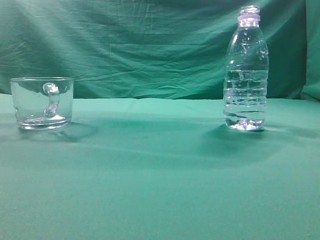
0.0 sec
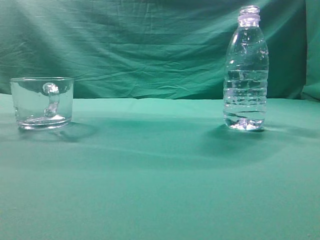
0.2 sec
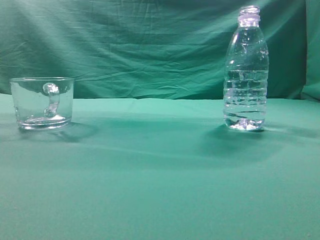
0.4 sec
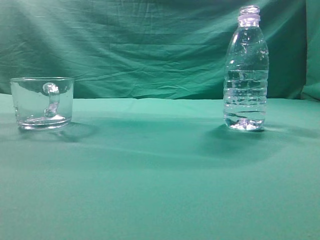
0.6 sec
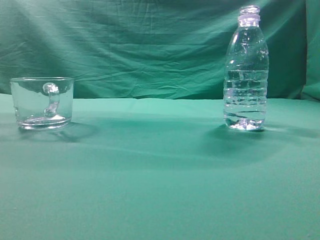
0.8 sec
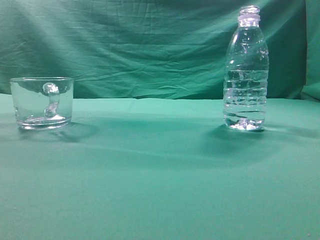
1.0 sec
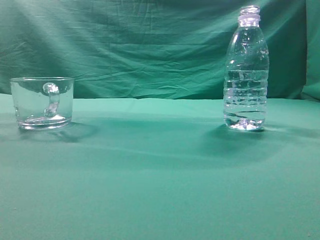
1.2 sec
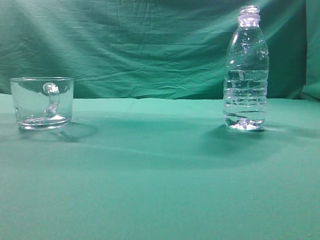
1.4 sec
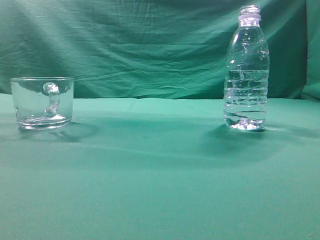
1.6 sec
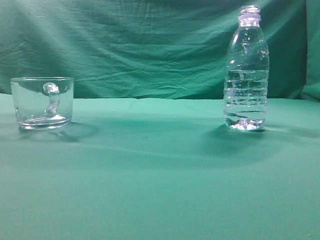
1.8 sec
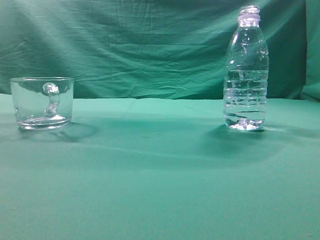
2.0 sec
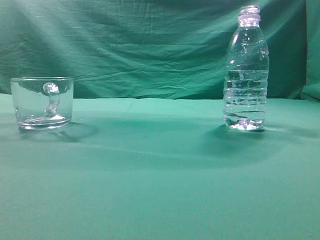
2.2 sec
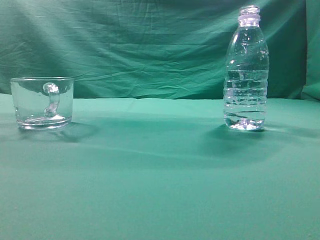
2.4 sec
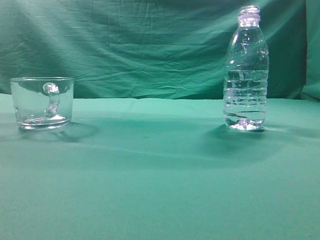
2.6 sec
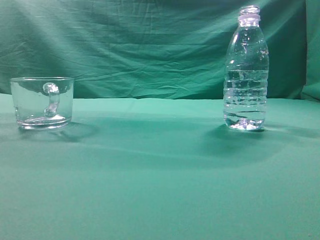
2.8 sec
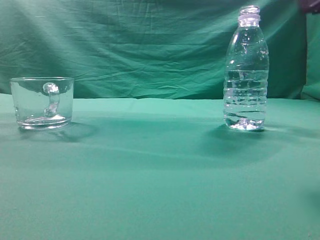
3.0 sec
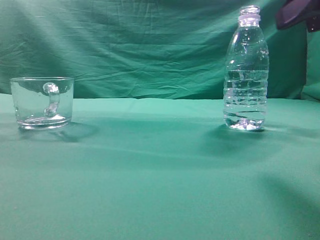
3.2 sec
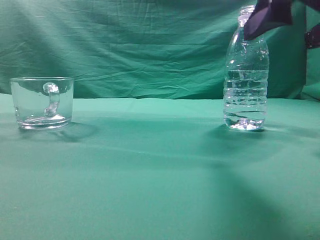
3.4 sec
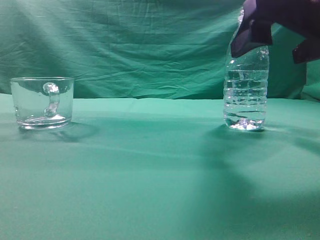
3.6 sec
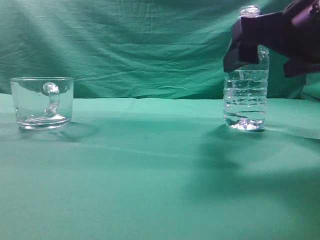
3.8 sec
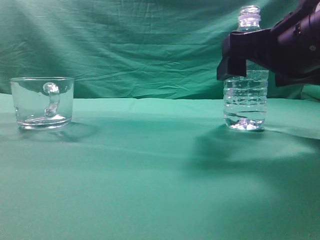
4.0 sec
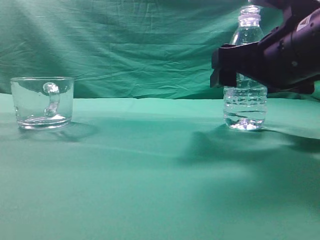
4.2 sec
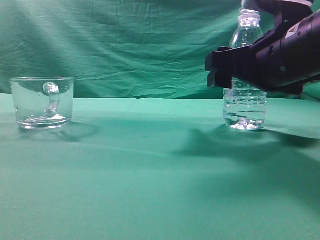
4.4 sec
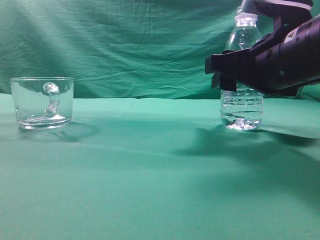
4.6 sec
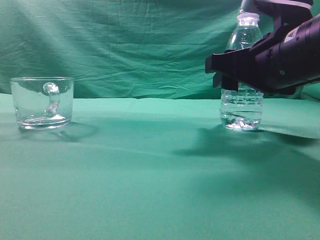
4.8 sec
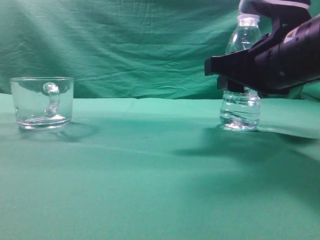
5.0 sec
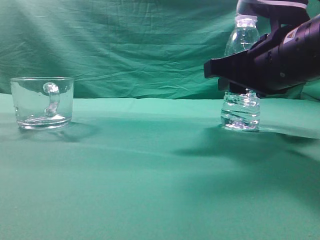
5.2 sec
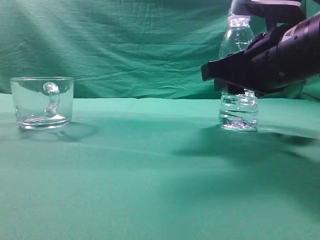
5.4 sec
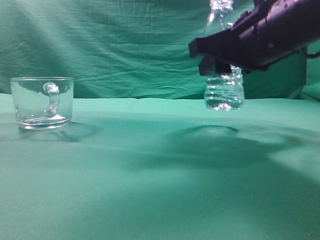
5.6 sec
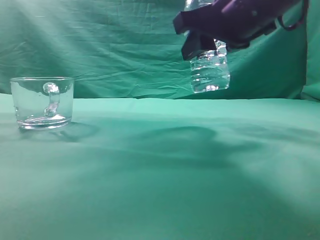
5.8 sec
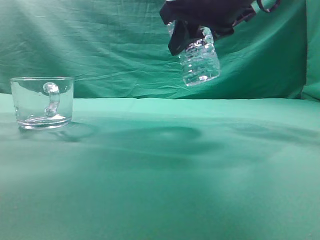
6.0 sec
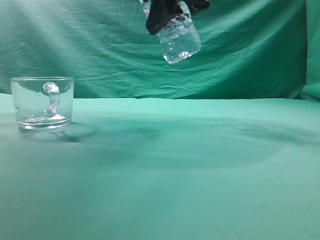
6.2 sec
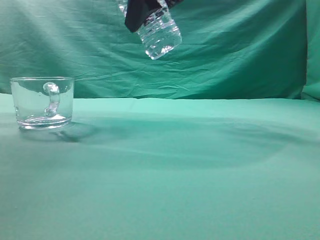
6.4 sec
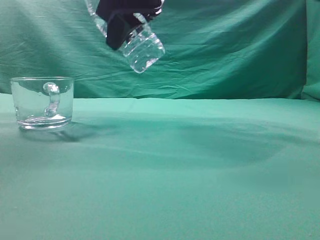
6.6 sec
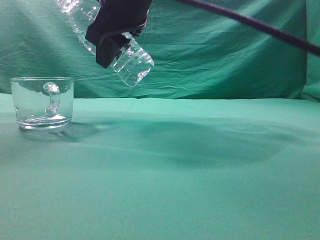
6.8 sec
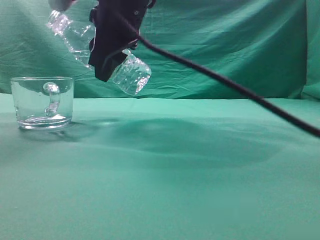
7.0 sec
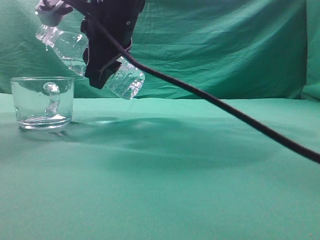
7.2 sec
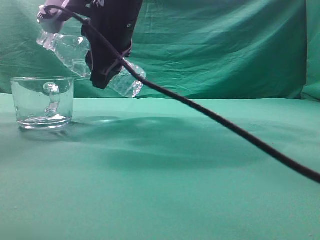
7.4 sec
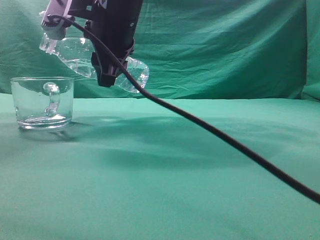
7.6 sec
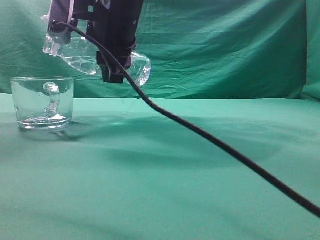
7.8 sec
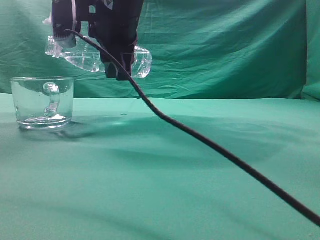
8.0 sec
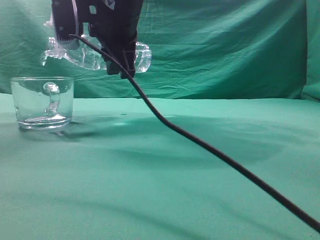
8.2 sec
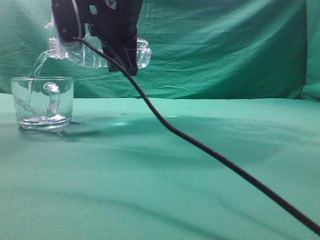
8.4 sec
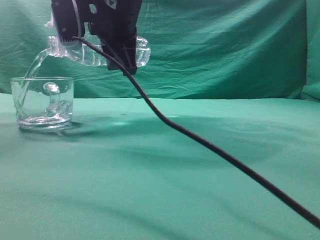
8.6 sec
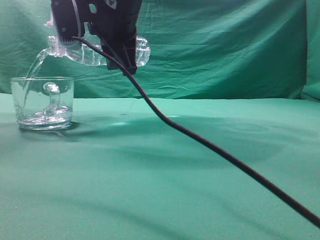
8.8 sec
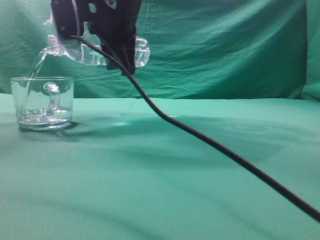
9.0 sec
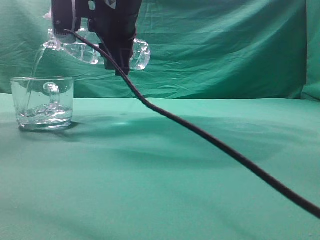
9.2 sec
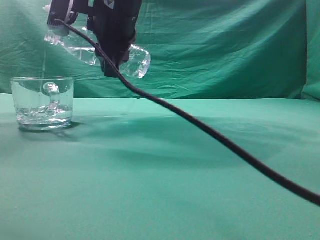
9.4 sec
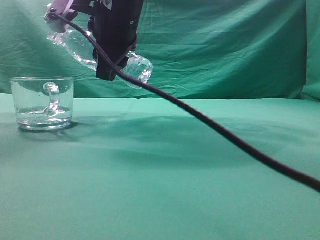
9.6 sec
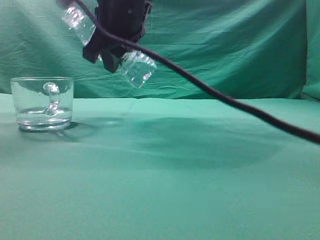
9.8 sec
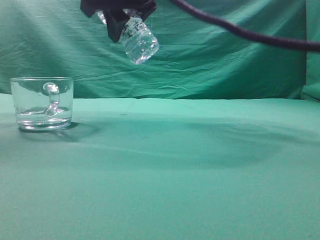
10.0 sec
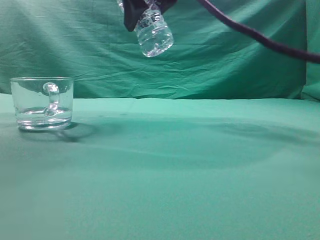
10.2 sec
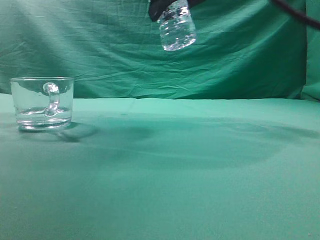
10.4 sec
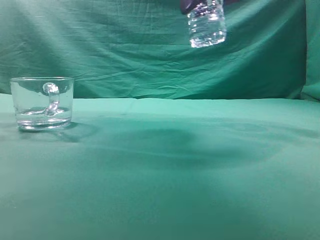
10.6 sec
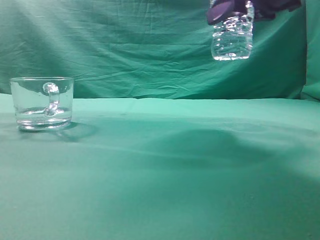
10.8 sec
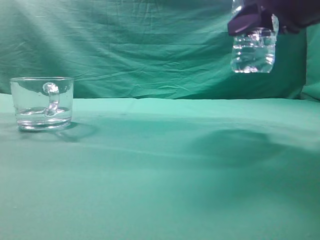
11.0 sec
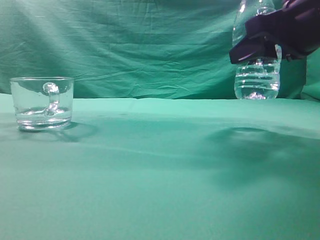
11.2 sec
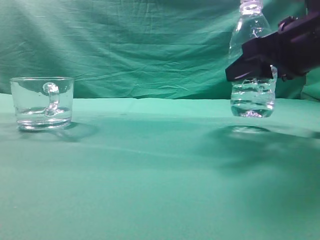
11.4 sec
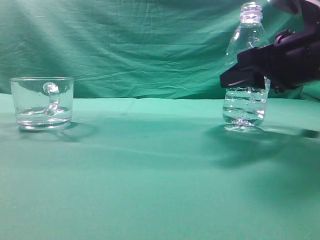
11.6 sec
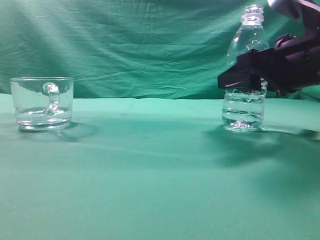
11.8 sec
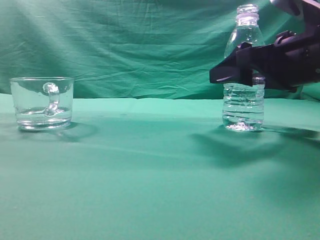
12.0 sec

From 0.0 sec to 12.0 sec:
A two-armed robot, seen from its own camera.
Task of the whole recording: pick up the water bottle and pour the water in it into the glass.
Step, from 0.0 sec to 5.6 sec: Grasp the mineral water bottle.
Step, from 5.8 sec to 9.6 sec: Pour water into the teacup.
From 3.0 sec to 4.4 sec: The right gripper travels forward, downward and to the left by some 15 cm, and opens its fingers.
From 4.4 sec to 6.0 sec: The right gripper travels upward and to the left by roughly 10 cm, and closes up.
From 6.0 sec to 7.6 sec: The right gripper is displaced to the left by about 15 cm.
From 9.0 sec to 10.4 sec: The right gripper heads to the right and upward, covering approximately 15 cm.
From 10.4 sec to 12.0 sec: The right gripper moves downward and to the right, about 20 cm, and opens.

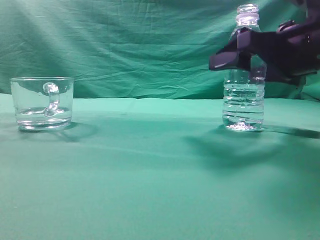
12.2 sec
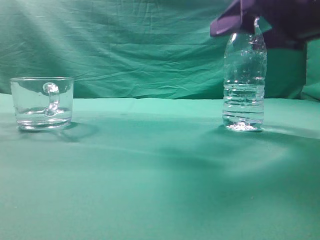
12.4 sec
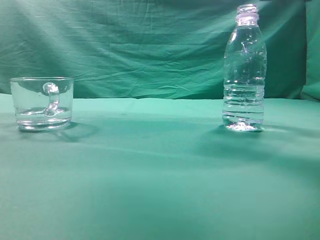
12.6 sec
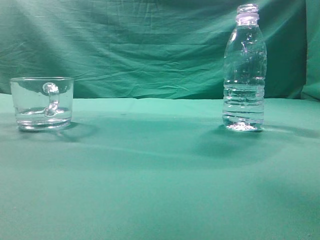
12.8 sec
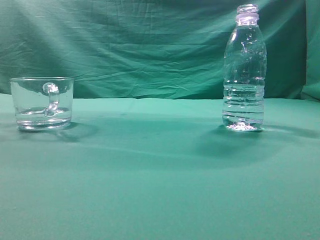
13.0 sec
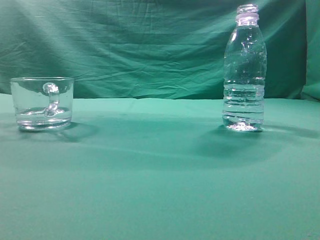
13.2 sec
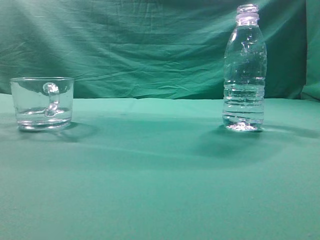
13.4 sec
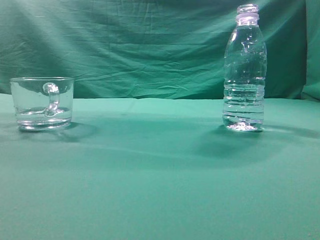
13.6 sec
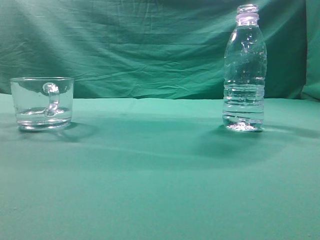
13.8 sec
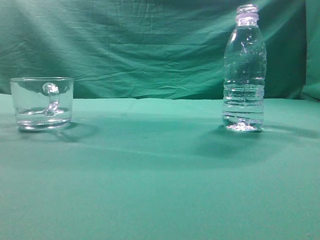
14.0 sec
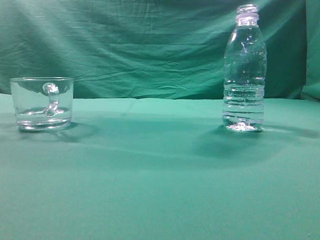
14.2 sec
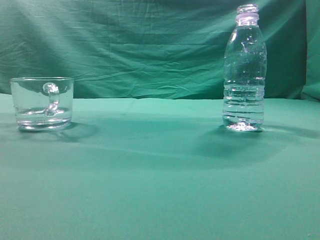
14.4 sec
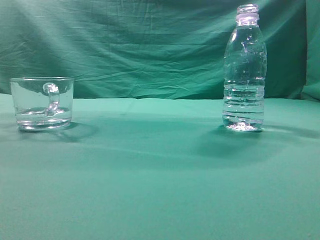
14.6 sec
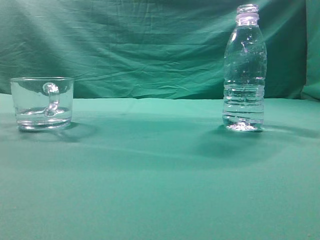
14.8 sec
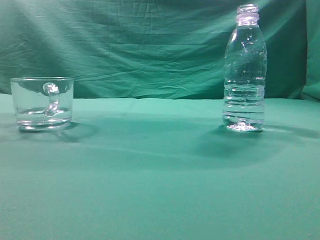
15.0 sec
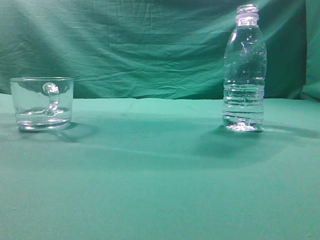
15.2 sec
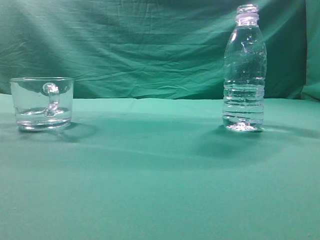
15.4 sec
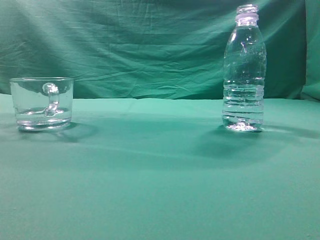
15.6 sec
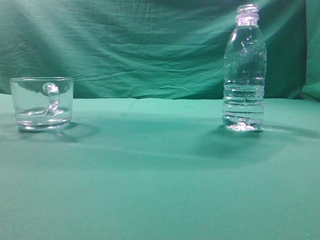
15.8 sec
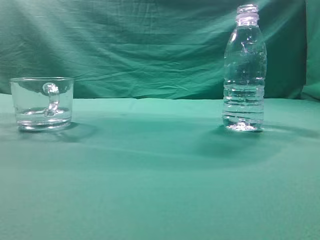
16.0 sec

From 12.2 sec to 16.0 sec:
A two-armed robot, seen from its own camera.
Task of the whole recording: pick up the water bottle and pour the water in it into the glass.
From 12.2 sec to 13.4 sec: The right gripper is displaced upward and backward by about 30 cm, and closes up.

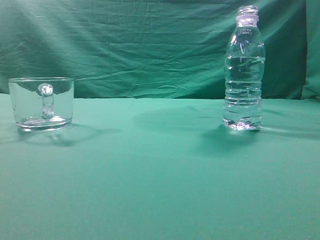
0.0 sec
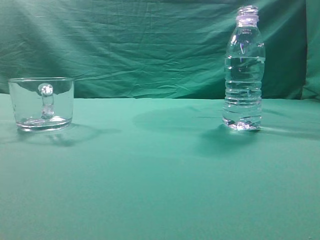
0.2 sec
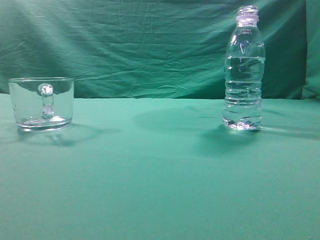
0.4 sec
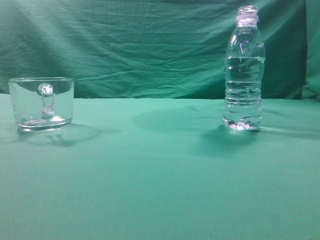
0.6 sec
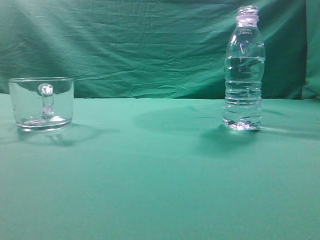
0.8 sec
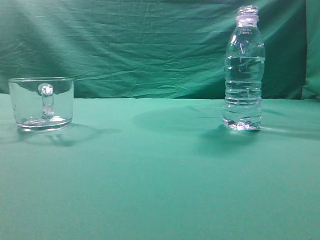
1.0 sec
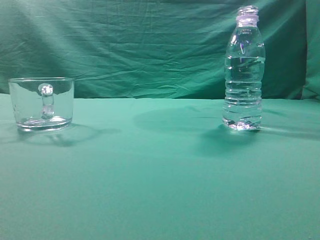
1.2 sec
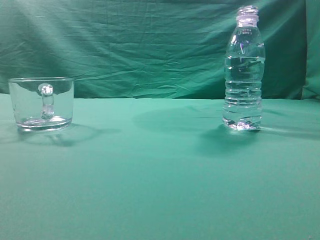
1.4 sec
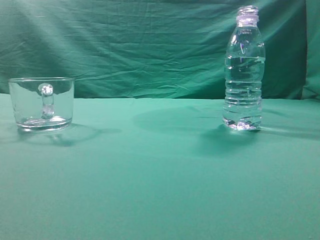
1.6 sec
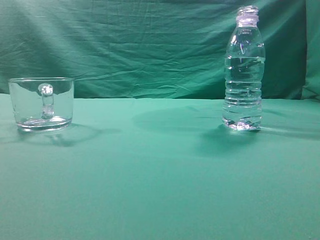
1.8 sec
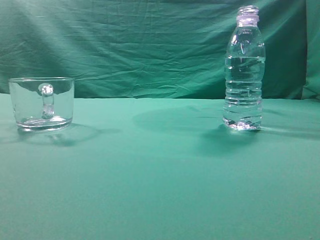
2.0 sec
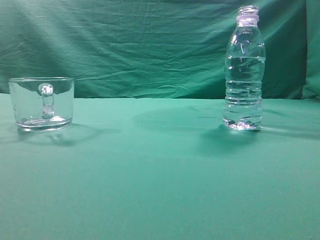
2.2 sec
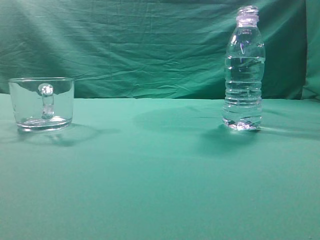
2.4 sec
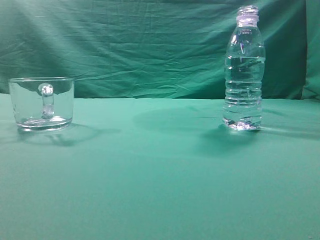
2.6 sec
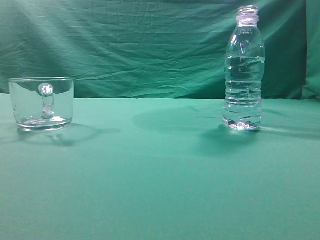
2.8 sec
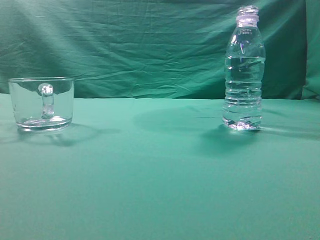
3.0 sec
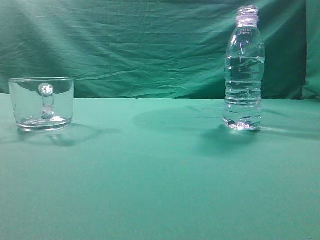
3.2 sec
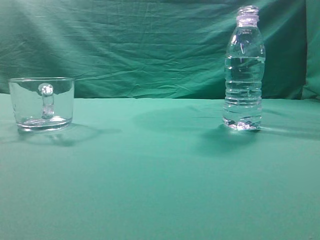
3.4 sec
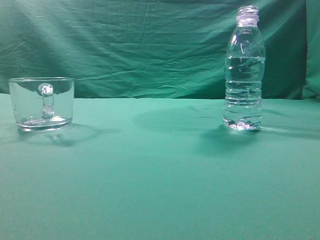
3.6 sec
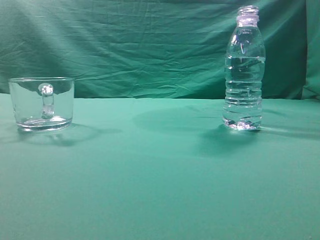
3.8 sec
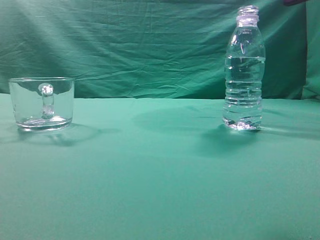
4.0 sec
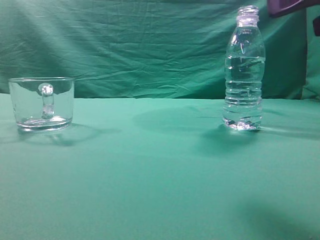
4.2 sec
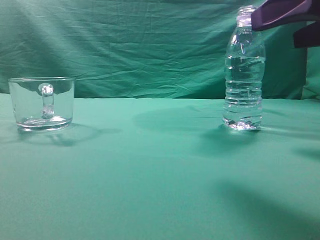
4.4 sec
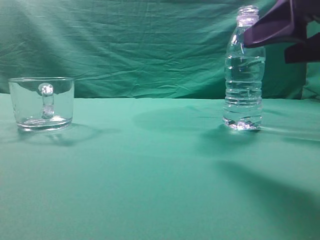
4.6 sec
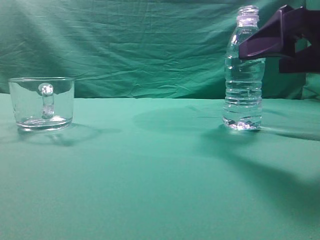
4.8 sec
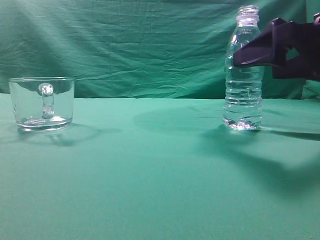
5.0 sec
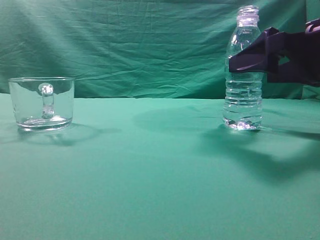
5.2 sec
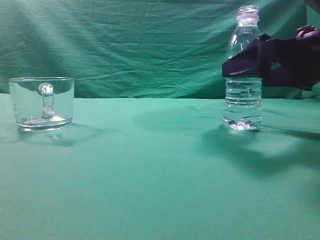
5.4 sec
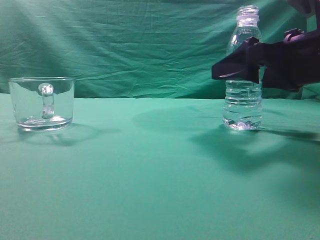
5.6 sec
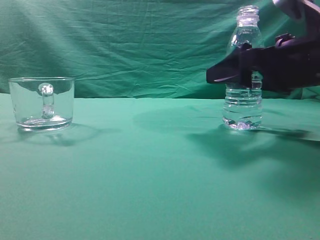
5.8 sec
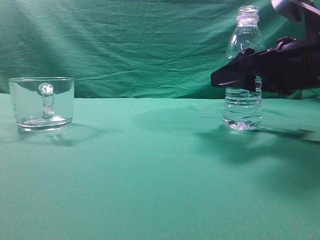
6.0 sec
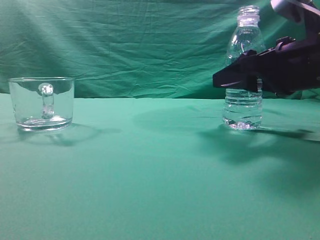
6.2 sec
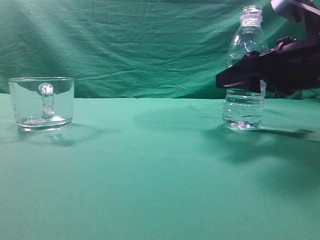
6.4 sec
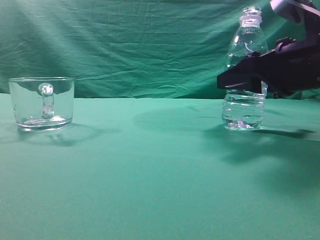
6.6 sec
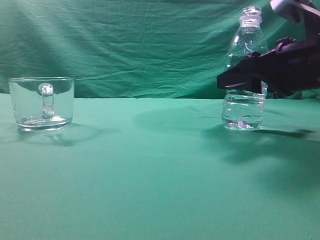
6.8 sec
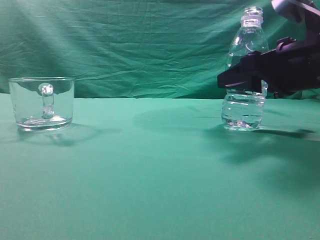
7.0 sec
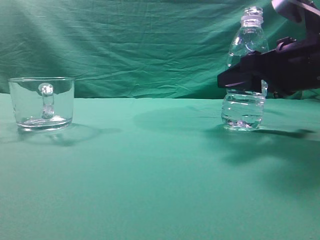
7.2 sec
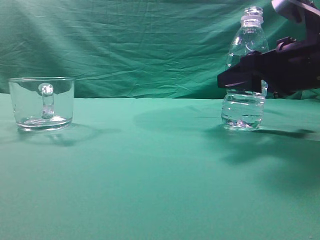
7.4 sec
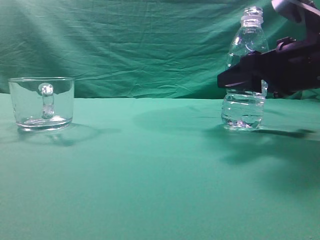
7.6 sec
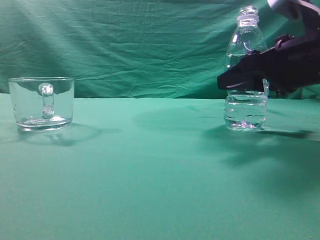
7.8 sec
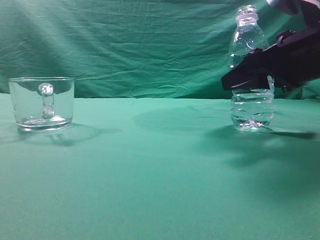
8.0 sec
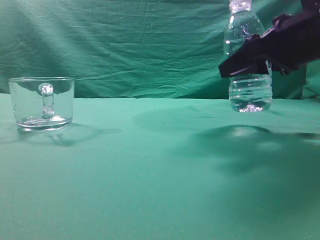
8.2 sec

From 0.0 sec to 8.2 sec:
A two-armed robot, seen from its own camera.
Task of the whole recording: pick up the water bottle and pour the water in it into the glass.
From 3.2 sec to 5.0 sec: The right gripper shifts about 20 cm forward and downward, and opens.
From 5.0 sec to 6.6 sec: The right gripper closes.
From 6.6 sec to 8.2 sec: The grippers stay close to where they were, moving slightly.
